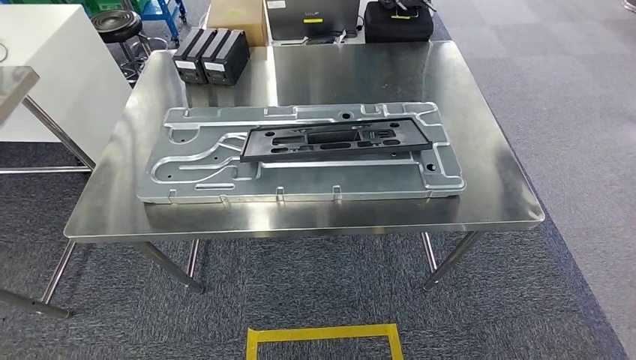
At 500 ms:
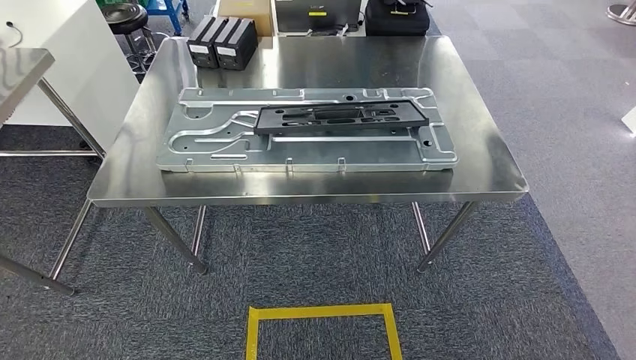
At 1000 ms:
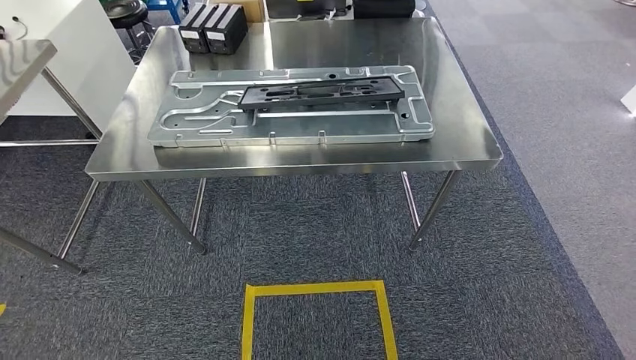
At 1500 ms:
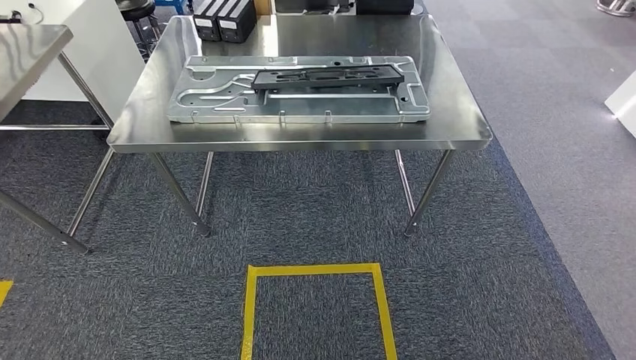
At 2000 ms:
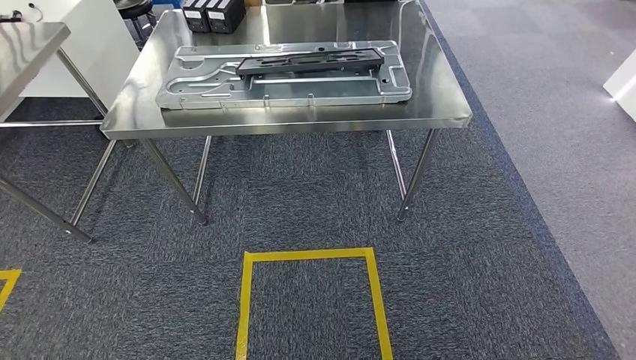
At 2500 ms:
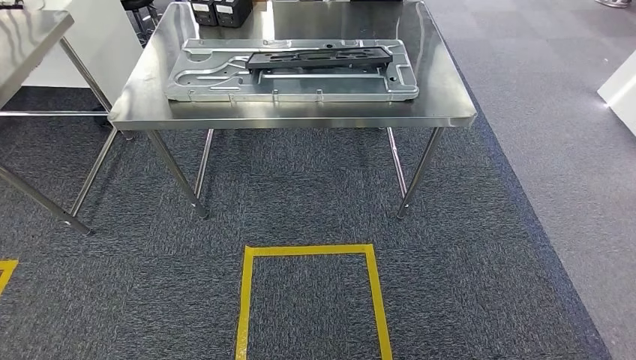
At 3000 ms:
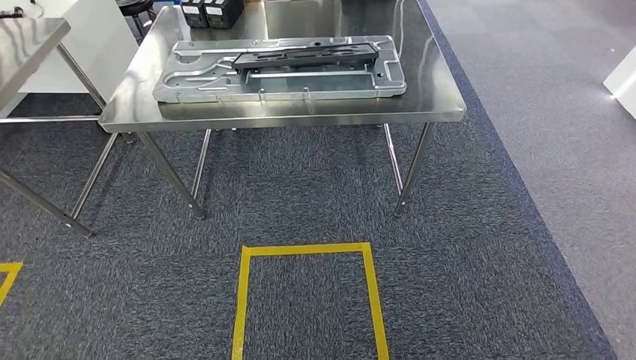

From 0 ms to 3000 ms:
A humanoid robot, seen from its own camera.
Step, from 0 ms to 3000 ms: Return to the initial position at the shelf.
